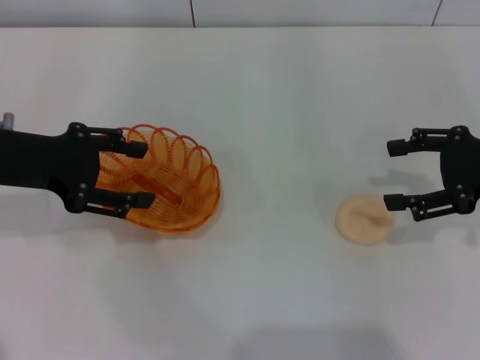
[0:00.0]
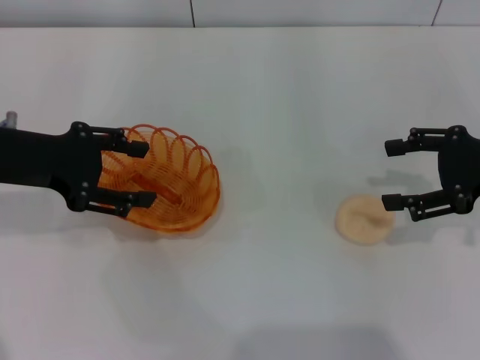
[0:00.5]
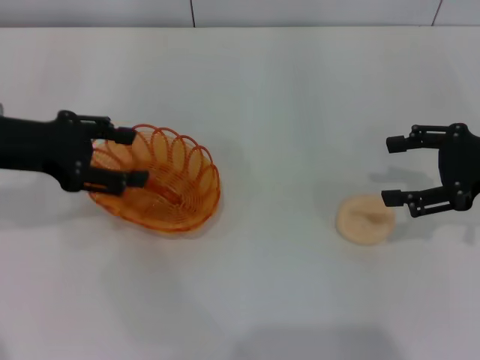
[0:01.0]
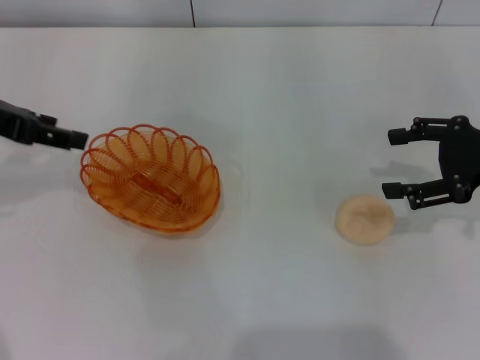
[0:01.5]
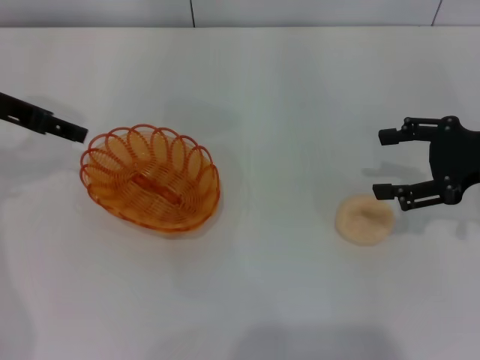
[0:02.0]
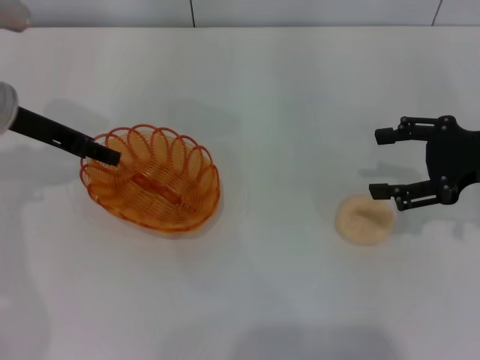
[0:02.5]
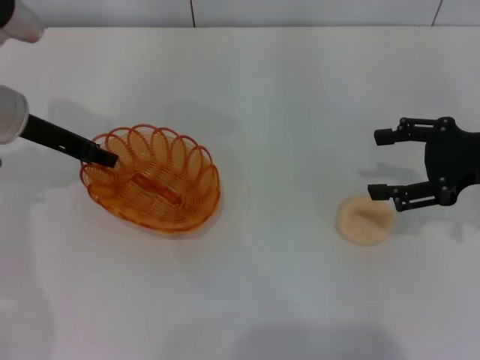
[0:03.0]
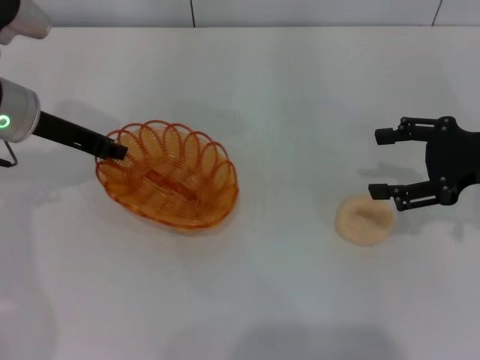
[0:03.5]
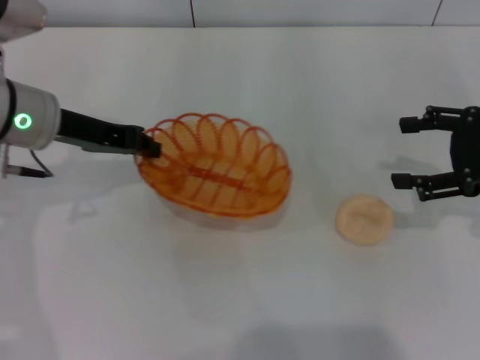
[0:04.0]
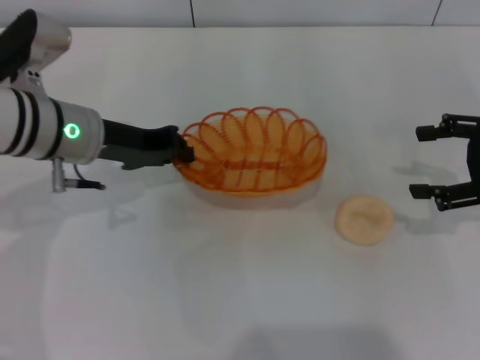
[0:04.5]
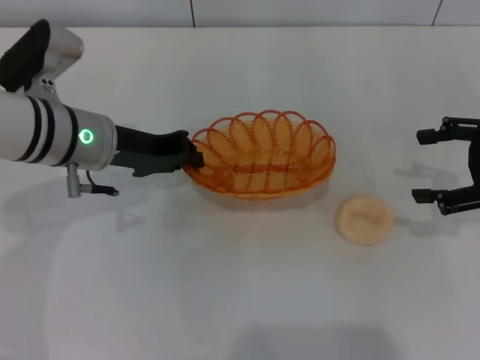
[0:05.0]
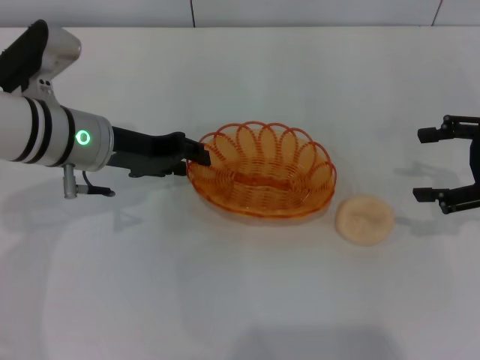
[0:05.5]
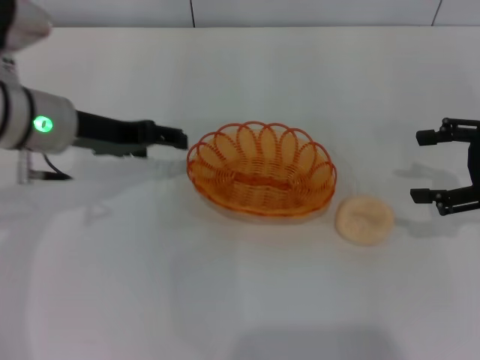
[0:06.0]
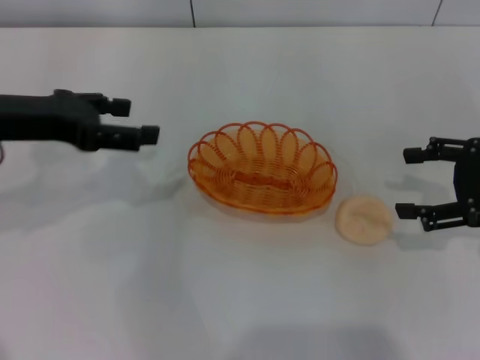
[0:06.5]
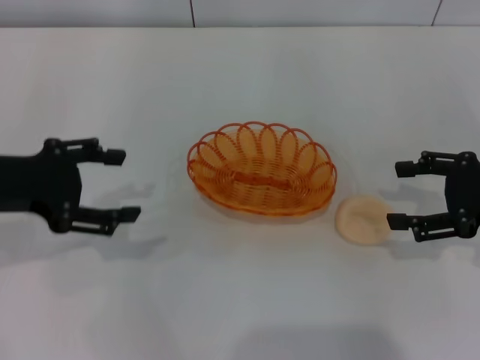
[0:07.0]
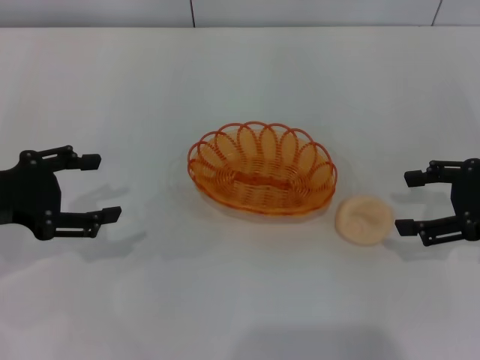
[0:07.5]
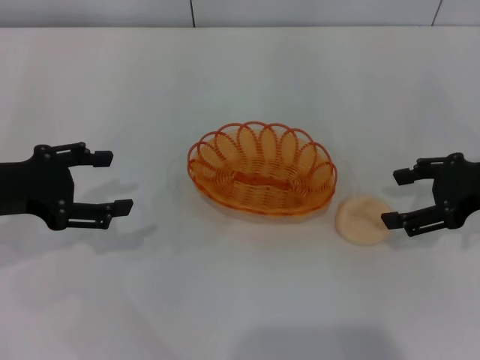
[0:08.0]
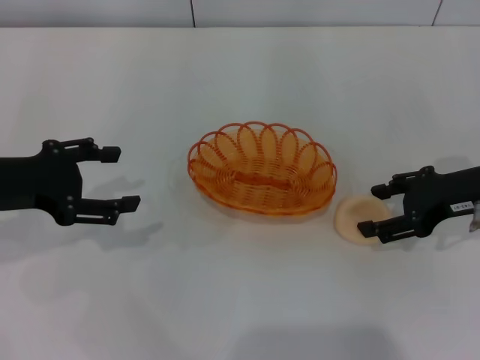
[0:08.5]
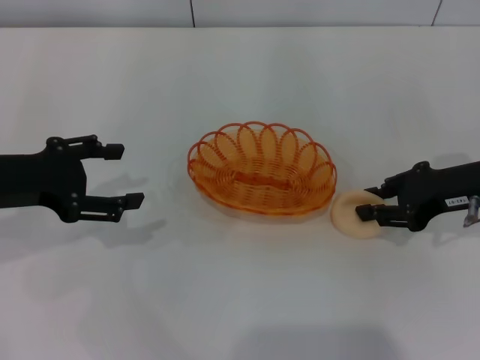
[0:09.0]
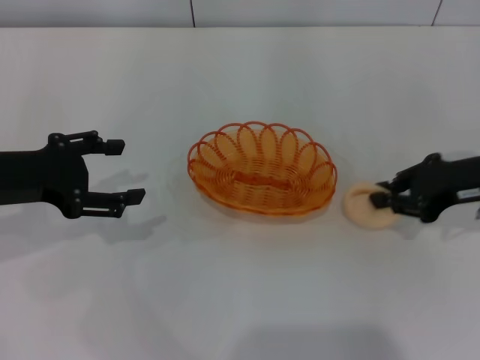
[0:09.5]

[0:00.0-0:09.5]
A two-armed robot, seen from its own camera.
Step, 0:00.0 to 0:04.0: Pick up the basket with the left gripper.
Step, 0:04.5 to 0:06.0: Place the basket in the center of view with the left gripper.
0:00.0 to 0:02.0: The left gripper travels forward by some 5 cm.
0:02.0 to 0:04.0: The left gripper goes about 5 cm to the right, and closes up.
0:04.0 to 0:05.5: The left gripper changes place by approximately 5 cm.
0:05.5 to 0:07.5: The left gripper shifts roughly 15 cm to the left and backward, and opens up.
0:07.5 to 0:09.5: The right gripper changes place by roughly 5 cm, and closes its fingers.

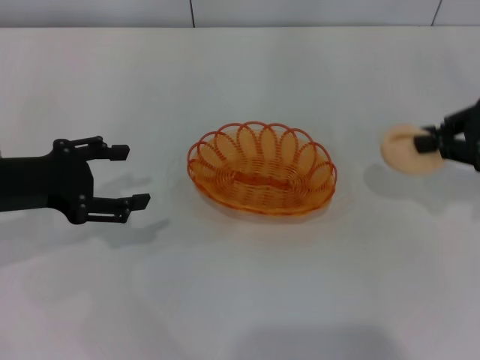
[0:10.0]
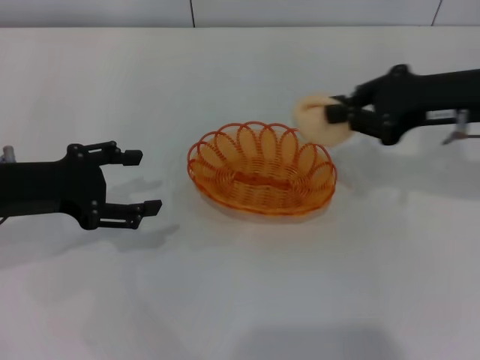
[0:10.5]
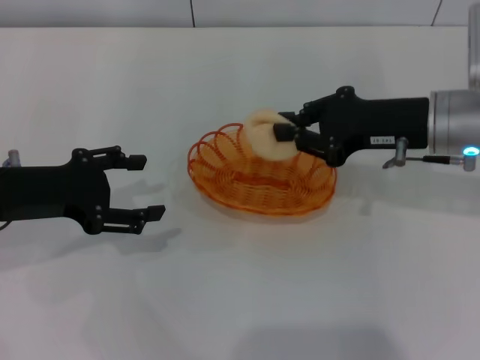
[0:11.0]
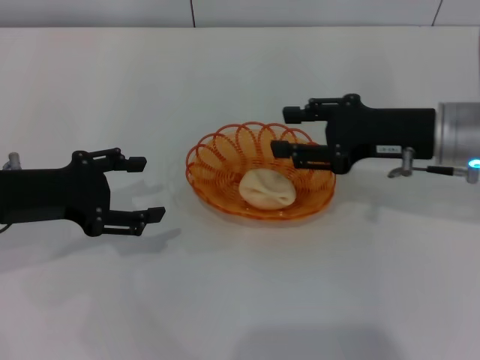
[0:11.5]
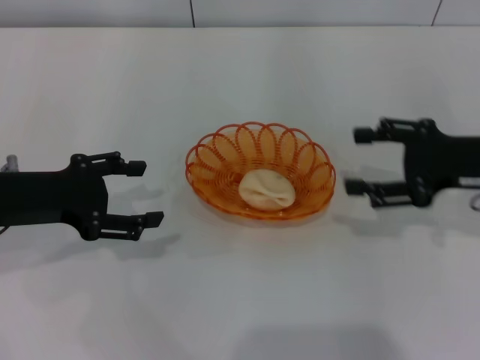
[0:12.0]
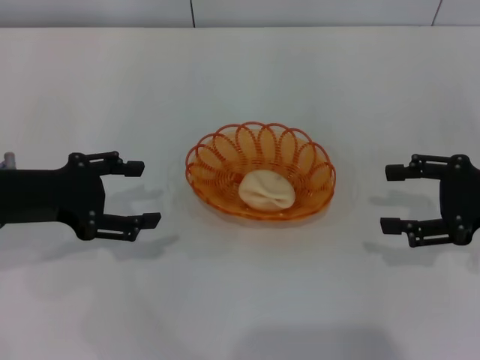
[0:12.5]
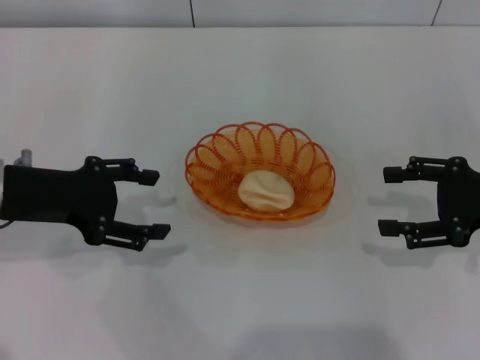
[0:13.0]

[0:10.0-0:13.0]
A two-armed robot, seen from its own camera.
Step, 0:10.0 to 0:11.5: Place the egg yolk pastry into the basket with the right gripper.
0:10.0 to 0:11.5: The right gripper heads to the left and downward, covering approximately 10 cm.
0:11.5 to 0:13.0: The right gripper travels to the right and backward by some 10 cm, and opens.
